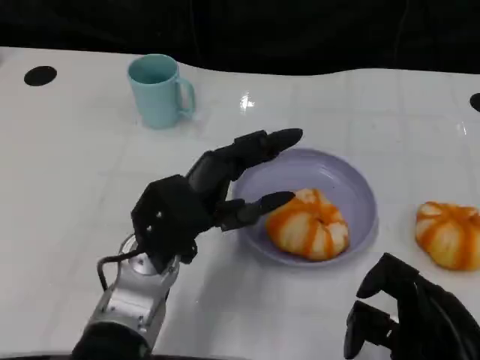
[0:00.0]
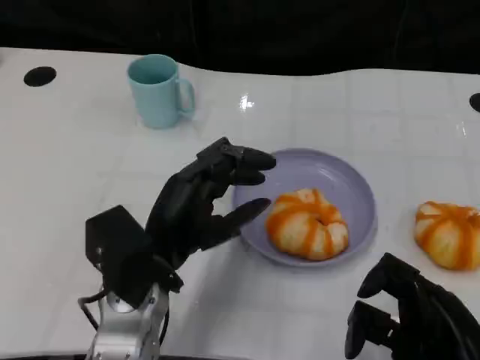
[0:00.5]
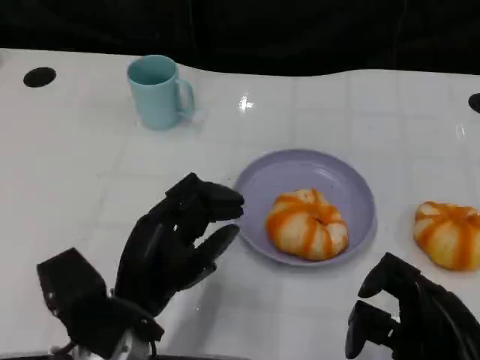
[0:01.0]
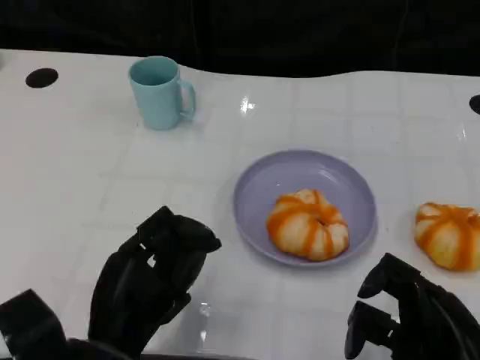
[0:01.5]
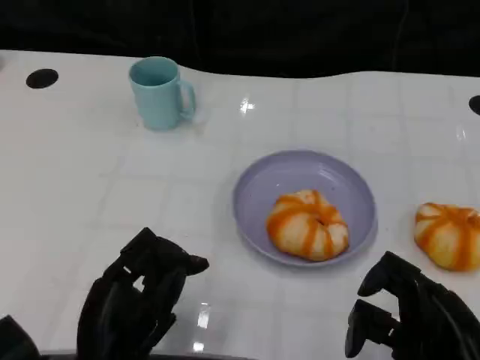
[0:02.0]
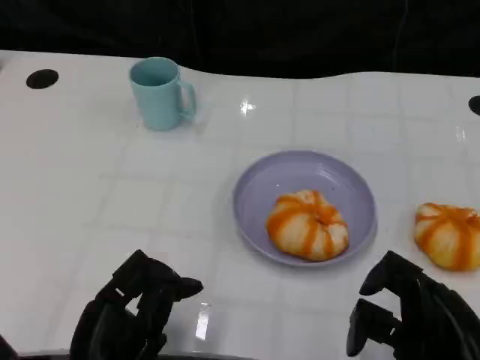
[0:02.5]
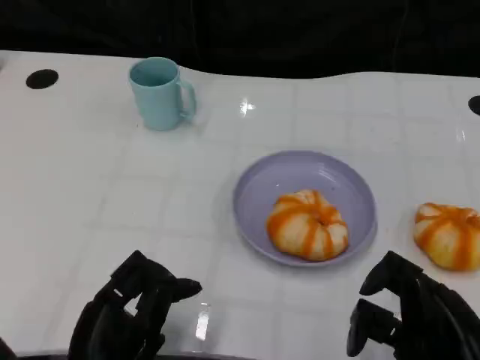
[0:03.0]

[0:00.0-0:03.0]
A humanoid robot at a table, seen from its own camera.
Task of the whole recording: Grasp the bread from the table and place it into the plate.
0:00.0 to 0:01.5: The left hand heads backward and to the left, covering roughly 10 cm.
0:01.5 to 0:03.0: The hands make only small movements.

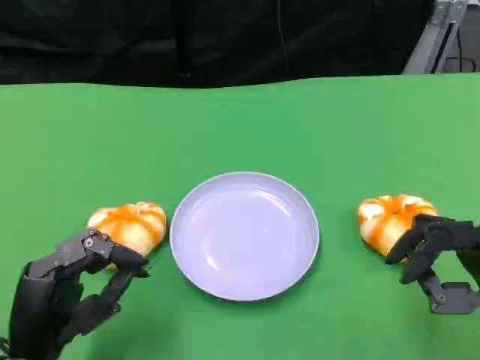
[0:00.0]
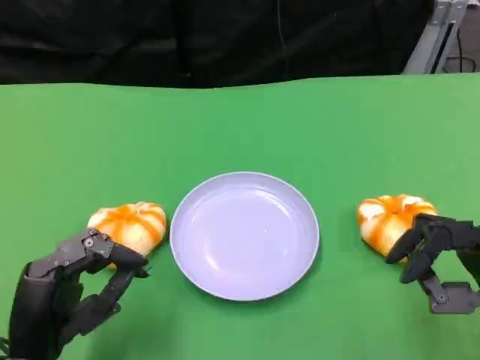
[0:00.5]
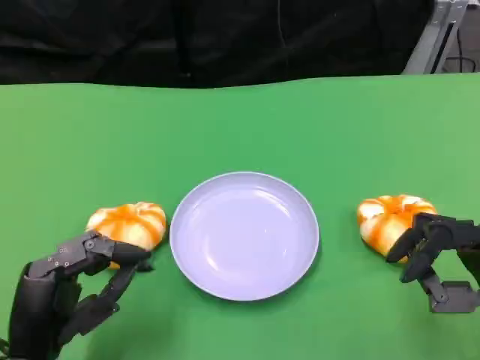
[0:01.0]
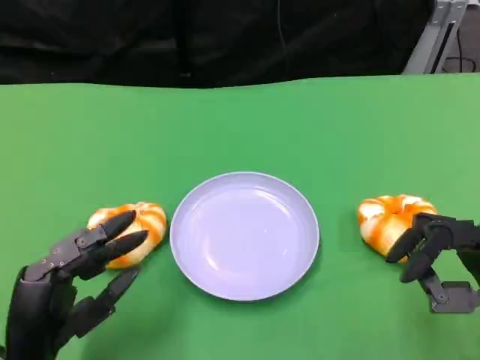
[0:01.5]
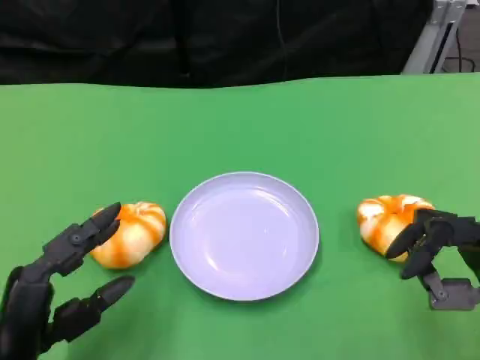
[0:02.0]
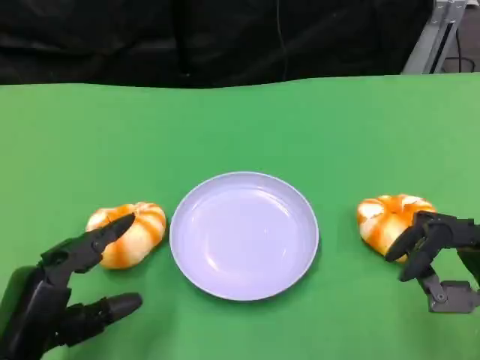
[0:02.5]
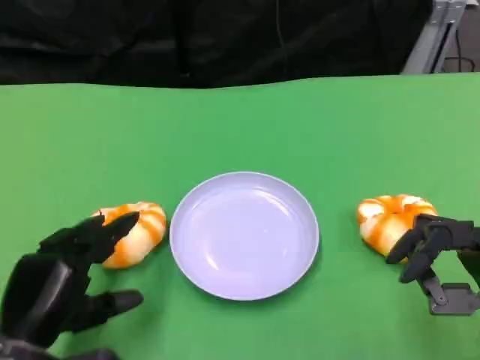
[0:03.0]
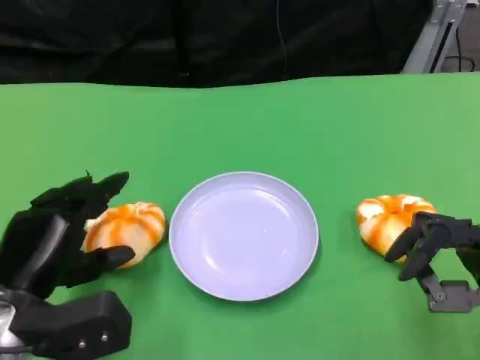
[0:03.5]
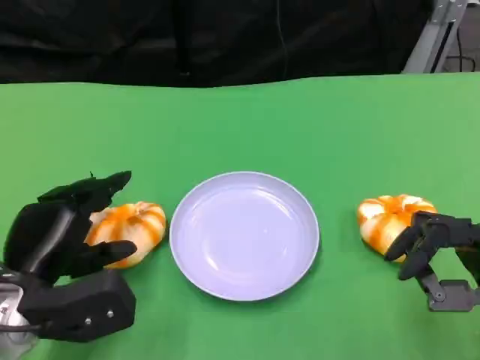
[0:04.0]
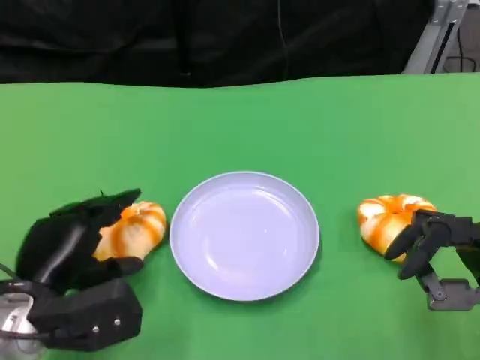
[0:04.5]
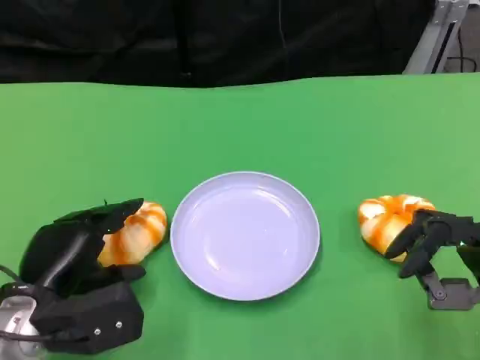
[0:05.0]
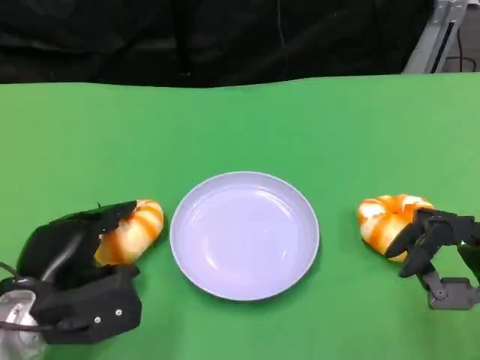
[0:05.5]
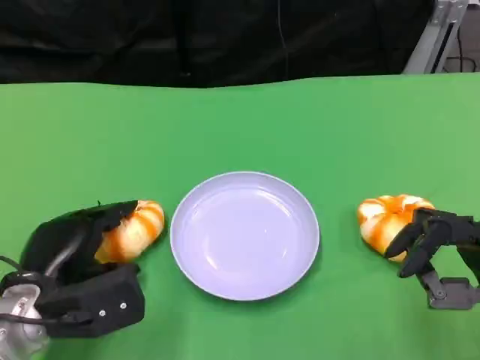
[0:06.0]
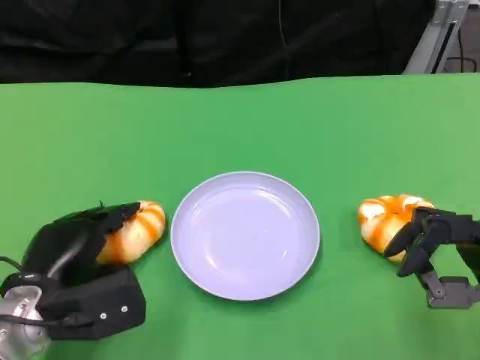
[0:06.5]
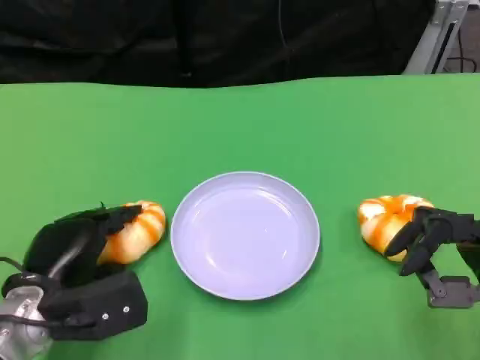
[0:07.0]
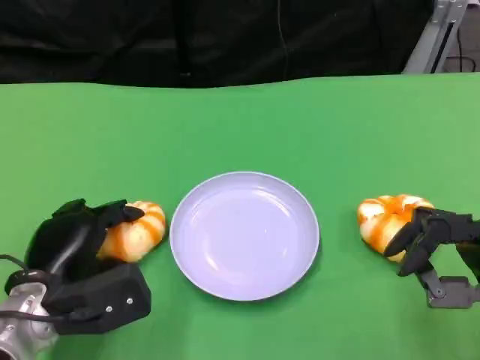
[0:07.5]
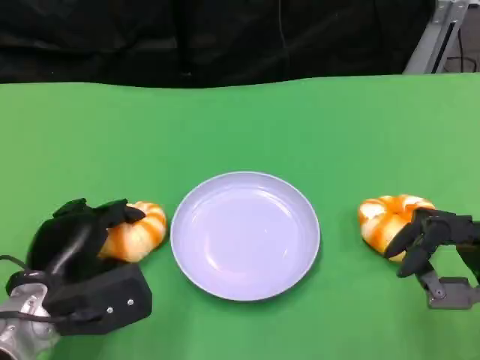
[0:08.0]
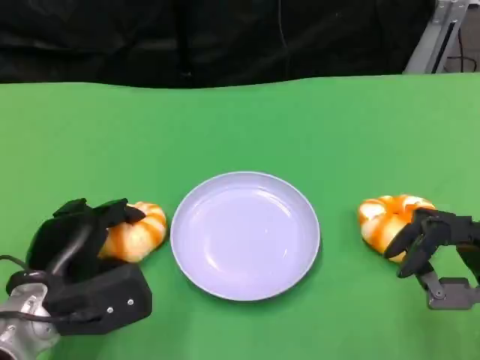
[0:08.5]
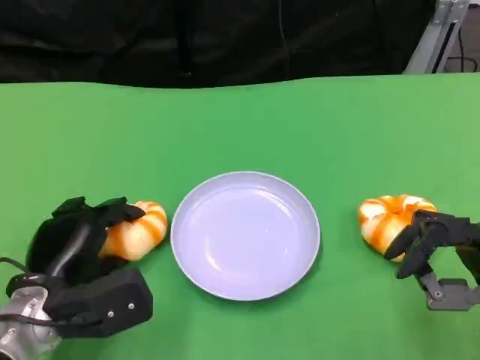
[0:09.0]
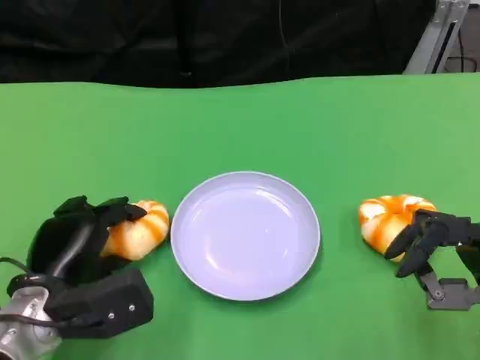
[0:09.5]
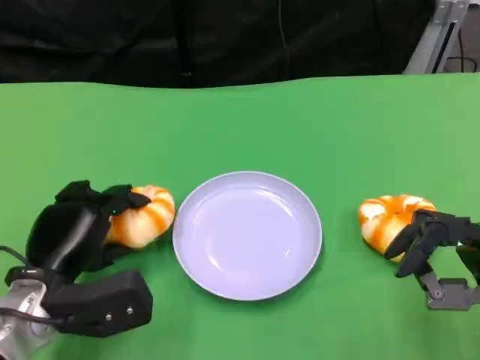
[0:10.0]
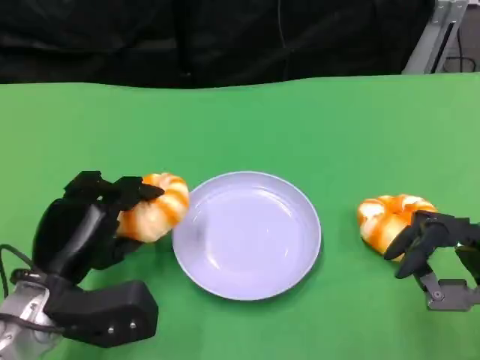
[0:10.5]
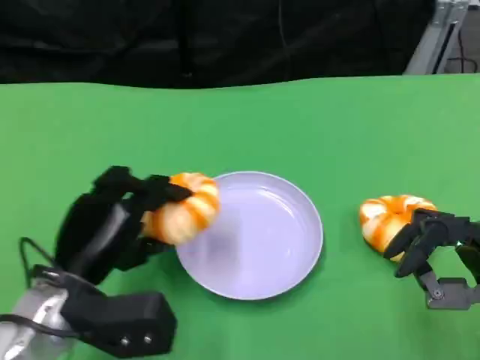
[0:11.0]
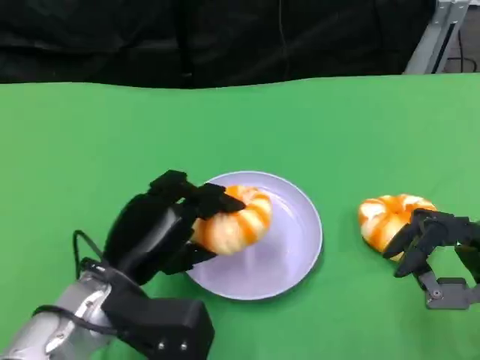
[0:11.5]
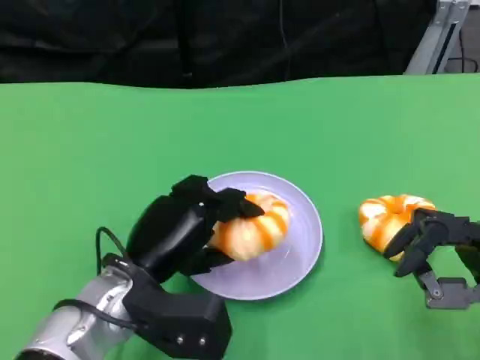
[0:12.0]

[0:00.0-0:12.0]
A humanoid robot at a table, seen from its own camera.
Task of the whole recording: Grasp the bread from the table and place it into the plate.
0:00.0 to 0:02.0: The hands make only small movements.
0:02.0 to 0:04.0: The left hand is displaced forward by approximately 5 cm.
0:04.0 to 0:06.0: There are only small adjustments of the hands.
0:06.0 to 0:08.0: Neither hand changes place.
0:08.0 to 0:10.0: The hands stay close to where they were, moving slightly.
0:10.0 to 0:12.0: The left hand moves to the right, roughly 10 cm.

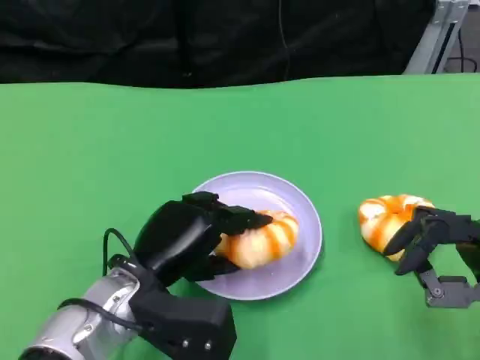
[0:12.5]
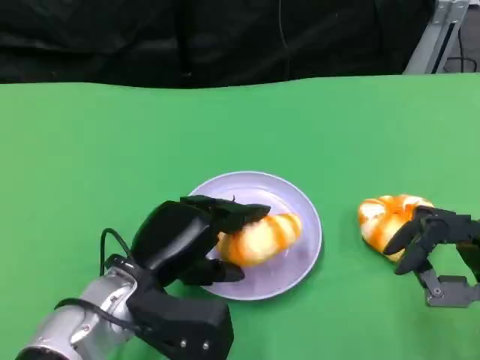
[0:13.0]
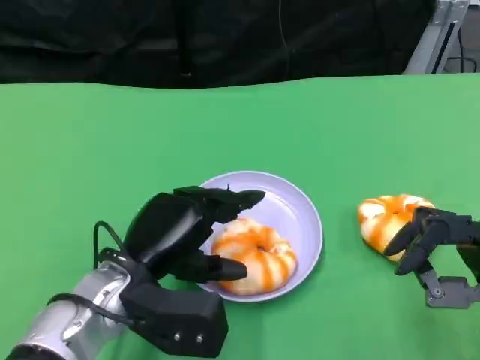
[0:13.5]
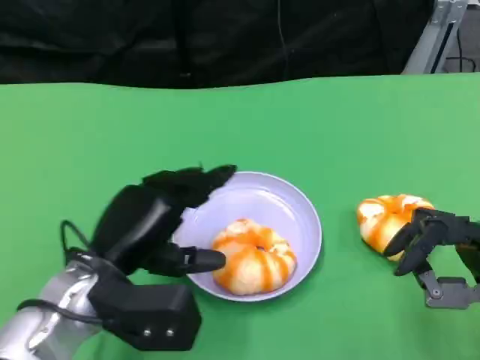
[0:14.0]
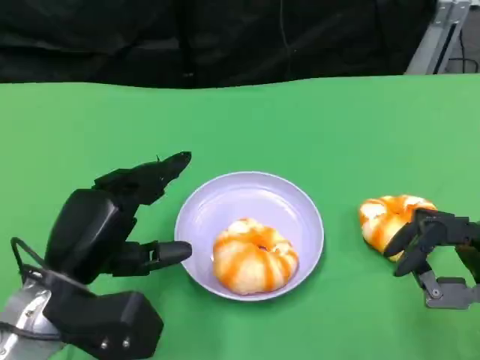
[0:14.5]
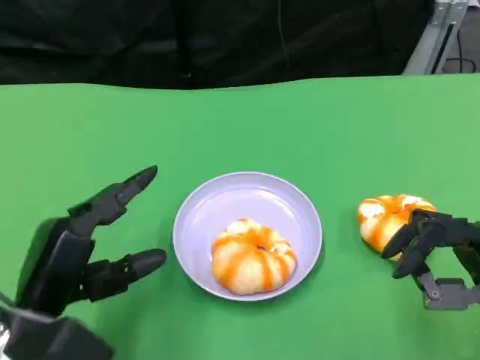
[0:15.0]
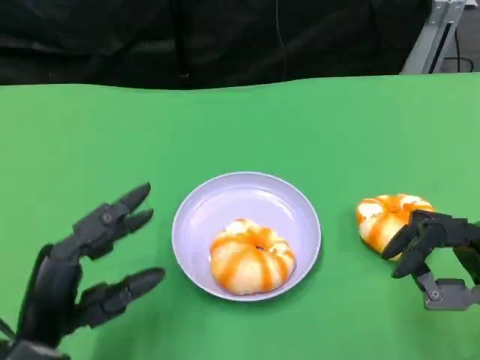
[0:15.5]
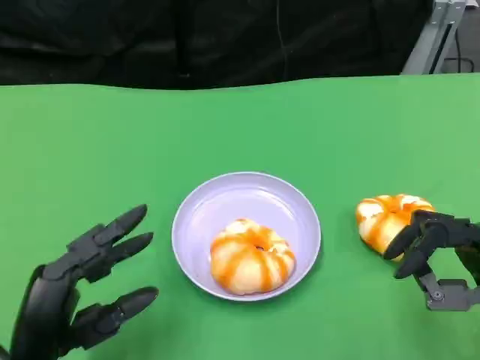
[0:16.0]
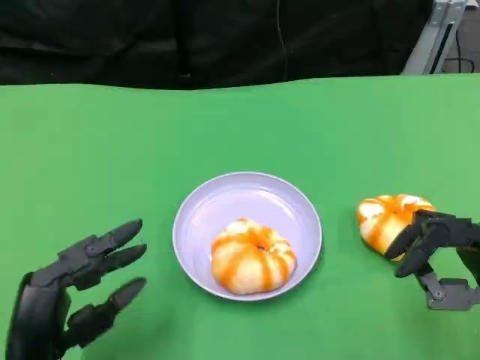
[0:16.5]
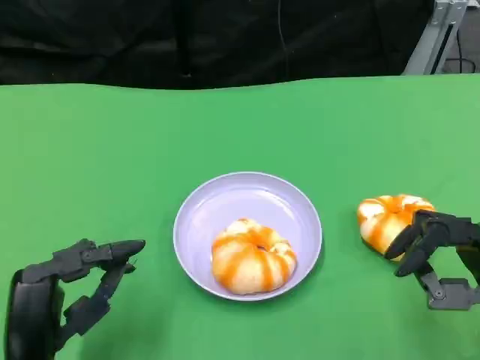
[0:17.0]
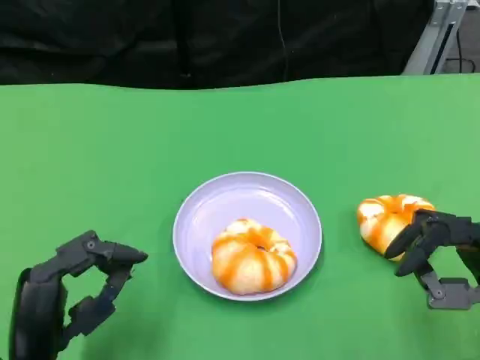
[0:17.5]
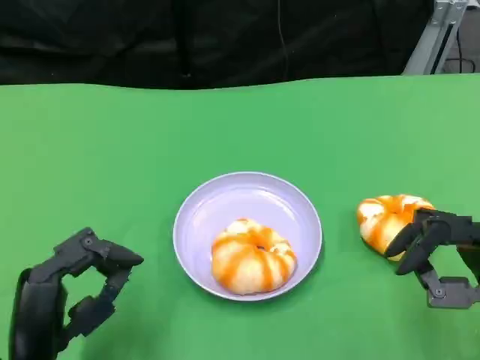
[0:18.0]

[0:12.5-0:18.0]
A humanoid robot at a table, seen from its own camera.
Task of the whole recording: Grasp the bread from the table and place it into the plate.
0:12.5 to 0:14.5: The left hand is displaced to the left by approximately 5 cm.
0:14.5 to 0:16.0: The left hand shifts roughly 5 cm backward.
0:16.0 to 0:18.0: The hands make only small movements.
